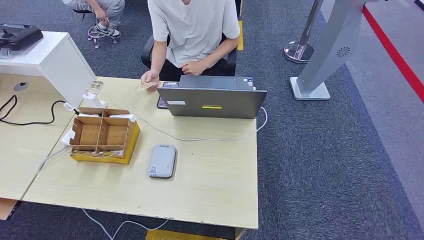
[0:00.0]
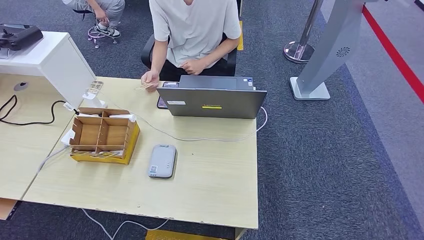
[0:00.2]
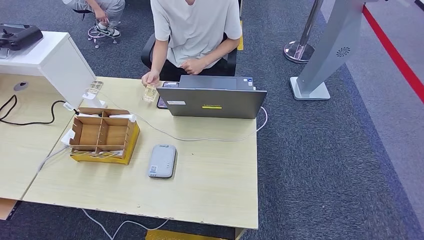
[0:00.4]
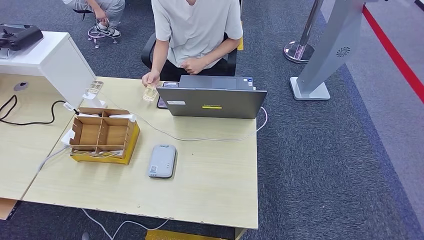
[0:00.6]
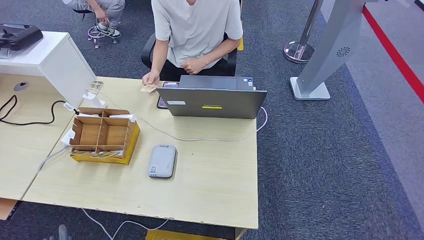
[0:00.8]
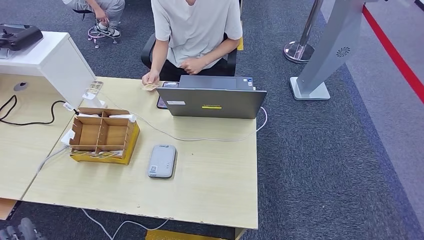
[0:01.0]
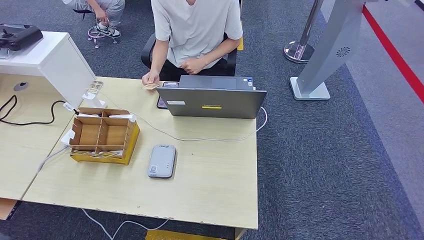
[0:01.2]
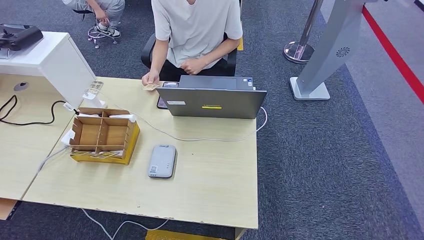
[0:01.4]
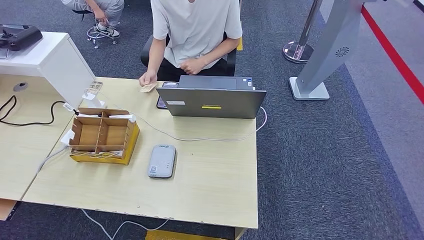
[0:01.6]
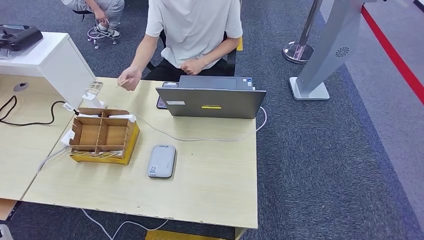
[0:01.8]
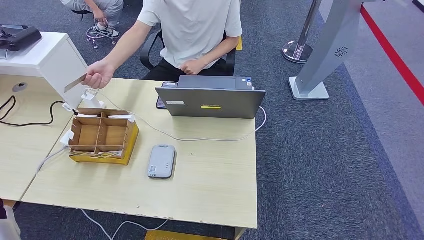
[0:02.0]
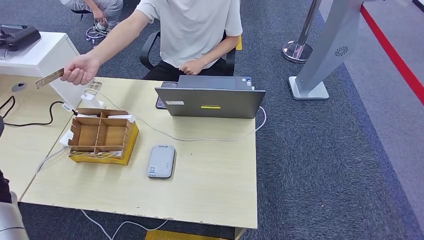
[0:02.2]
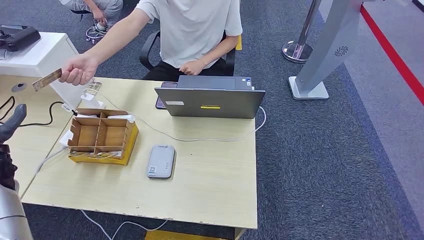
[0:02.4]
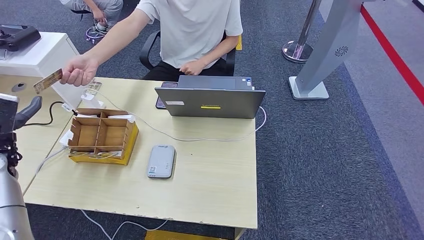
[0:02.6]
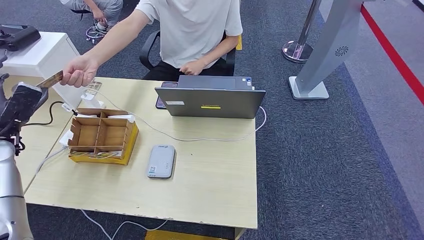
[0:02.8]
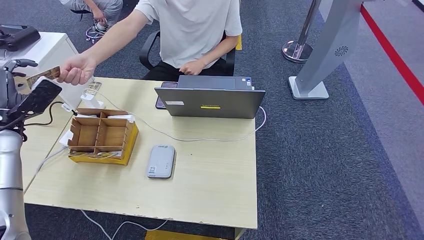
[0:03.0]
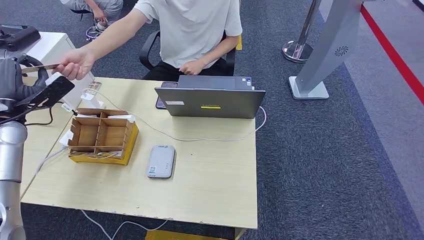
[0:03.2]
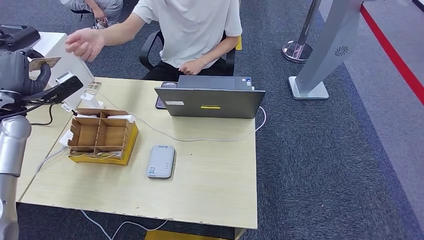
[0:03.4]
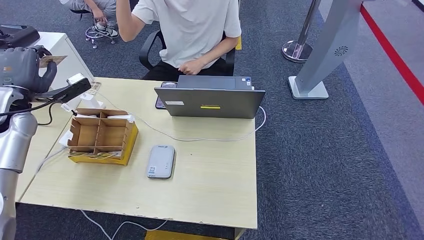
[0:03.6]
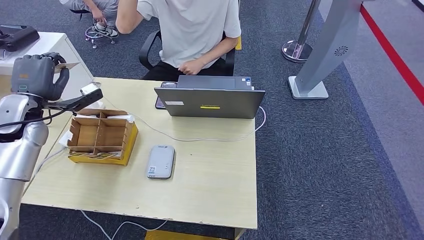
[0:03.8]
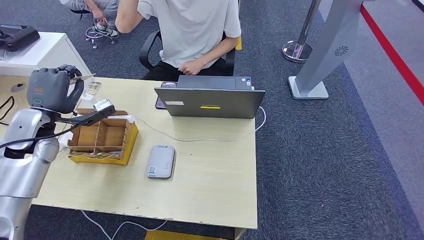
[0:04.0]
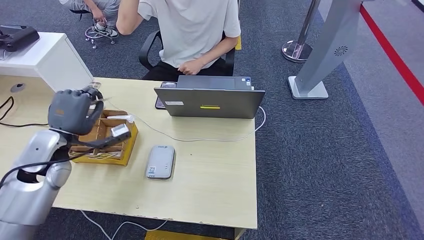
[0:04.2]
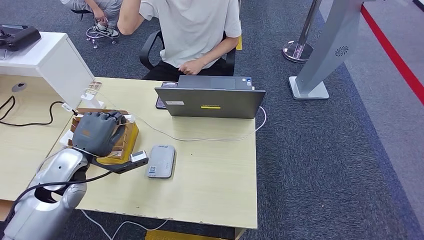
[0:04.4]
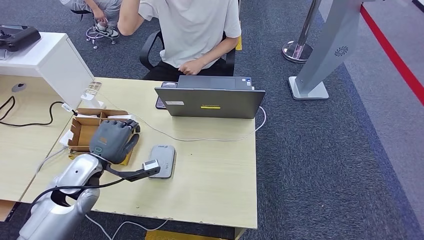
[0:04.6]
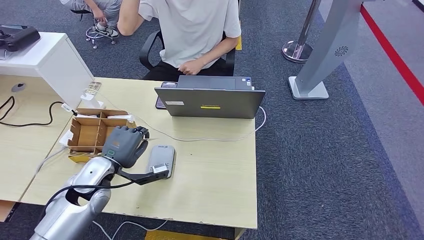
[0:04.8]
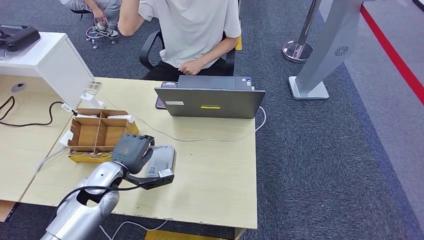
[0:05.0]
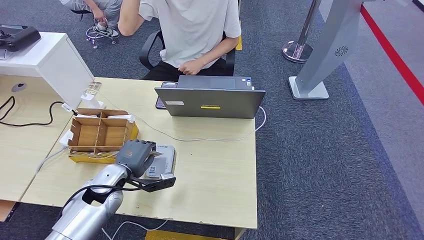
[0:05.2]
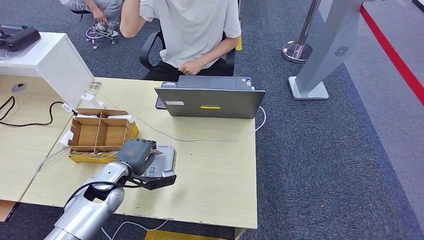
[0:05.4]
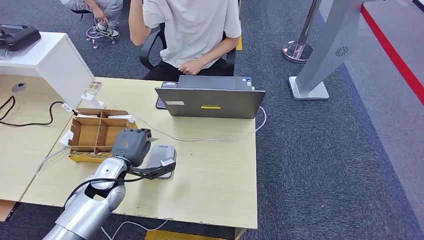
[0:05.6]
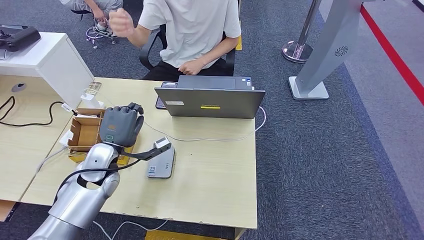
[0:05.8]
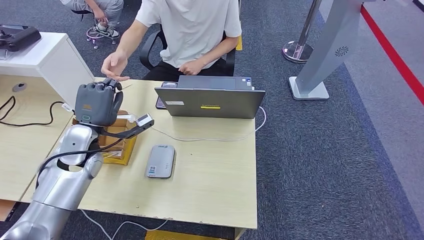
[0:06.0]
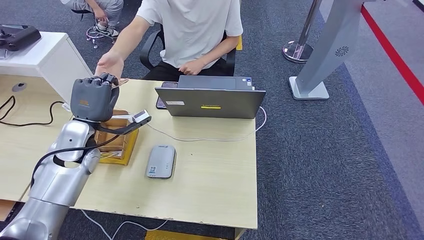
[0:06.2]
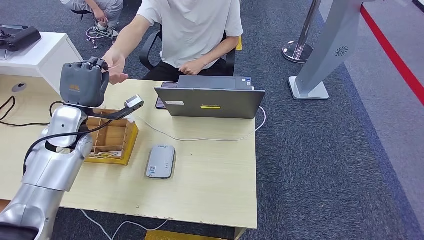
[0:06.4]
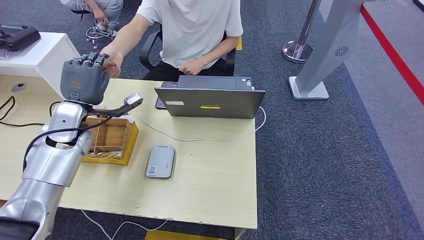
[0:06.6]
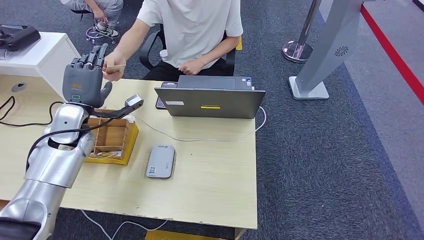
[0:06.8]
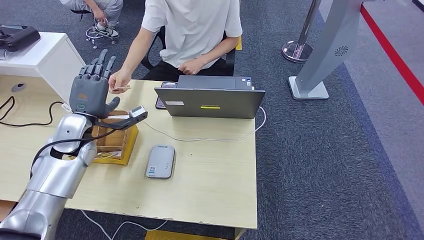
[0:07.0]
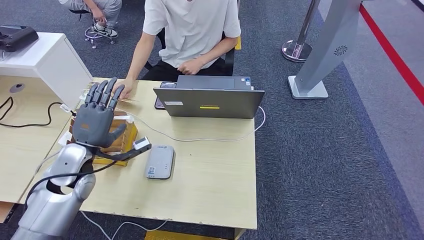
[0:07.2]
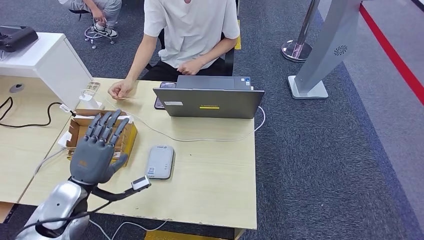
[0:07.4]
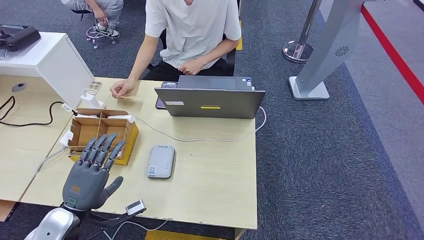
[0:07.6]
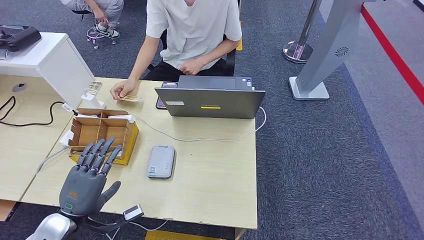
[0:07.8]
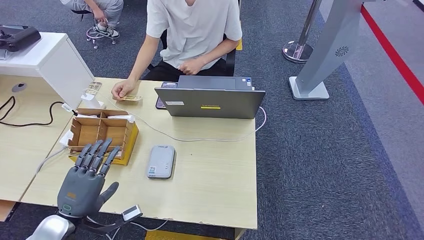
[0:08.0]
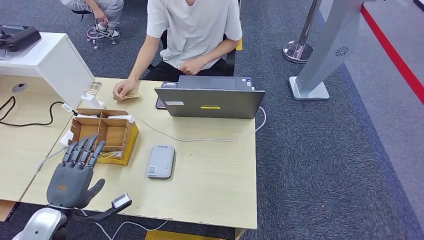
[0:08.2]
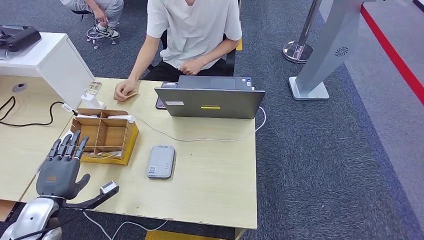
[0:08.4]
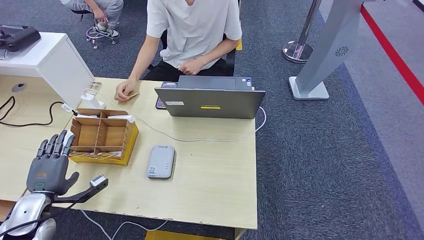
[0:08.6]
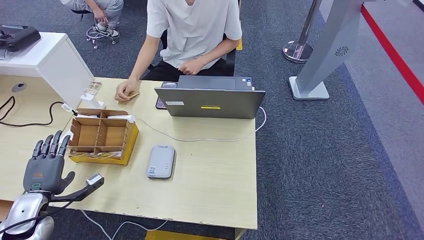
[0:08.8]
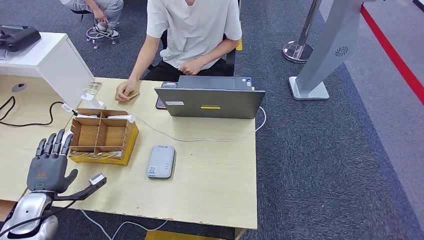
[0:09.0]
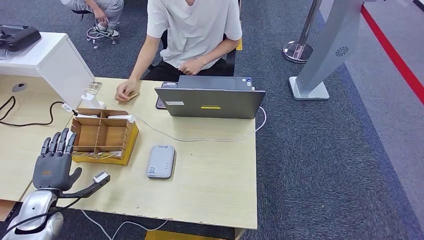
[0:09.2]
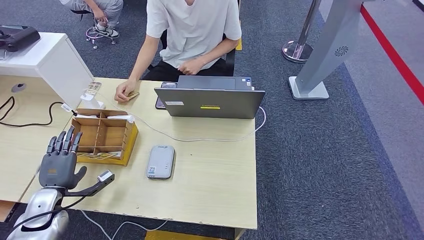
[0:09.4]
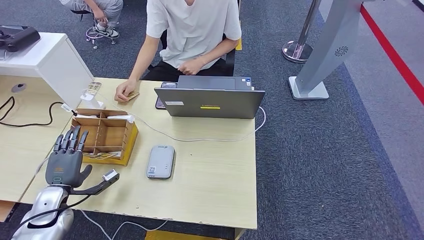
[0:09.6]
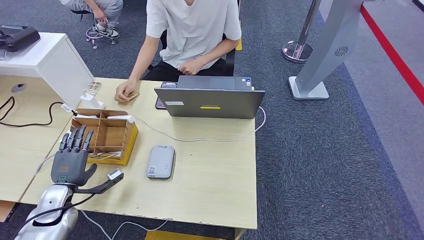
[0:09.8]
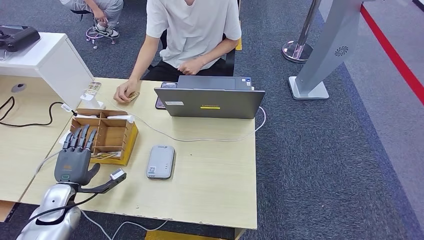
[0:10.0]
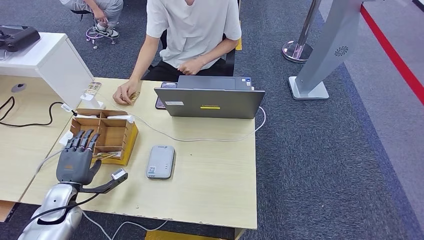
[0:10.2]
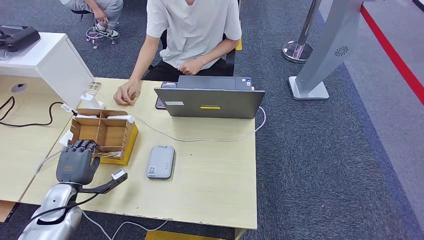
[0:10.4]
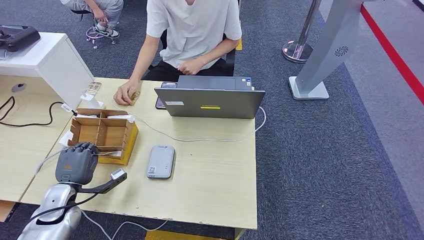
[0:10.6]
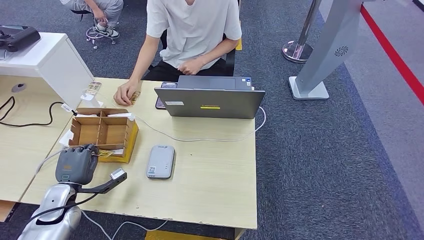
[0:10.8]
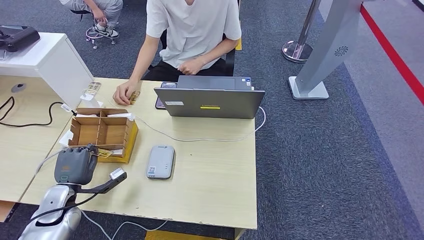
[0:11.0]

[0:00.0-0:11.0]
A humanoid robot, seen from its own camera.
Step, 0:00.0 to 0:03.8: Take the ID card from the person's hand.
Step, 0:04.6 to 0:05.2: Place the ID card on the card reader.
Step, 0:05.8 to 0:06.6: Hand the ID card to the person.
0:01.6 to 0:03.2: The left hand travels forward and upward by approximately 30 cm.
0:03.2 to 0:04.8: The left hand goes some 25 cm to the right, downward and backward.
0:04.8 to 0:06.2: The left hand moves upward and forward, roughly 10 cm.
0:06.2 to 0:07.8: The left hand moves backward and downward, roughly 20 cm.
0:07.8 to 0:09.4: The left hand travels to the left, forward and downward by some 15 cm.
0:09.4 to 0:11.0: There are only small adjustments of the hands.

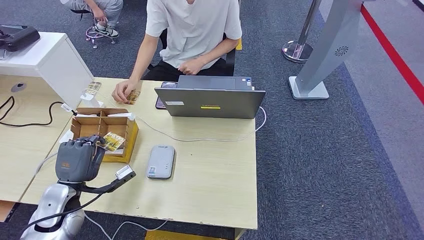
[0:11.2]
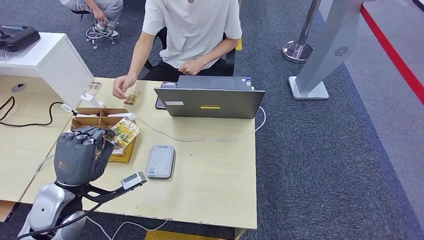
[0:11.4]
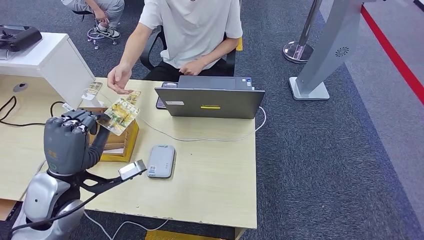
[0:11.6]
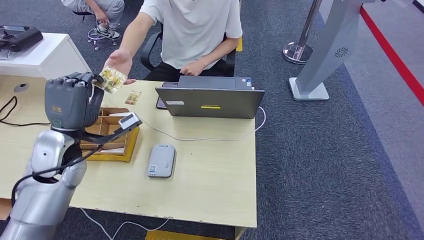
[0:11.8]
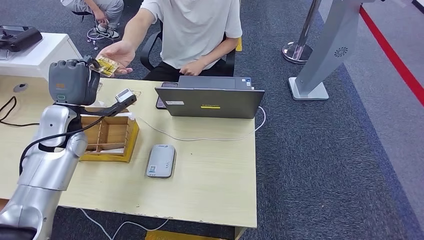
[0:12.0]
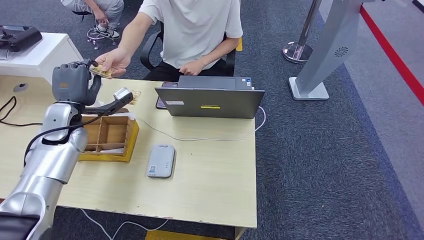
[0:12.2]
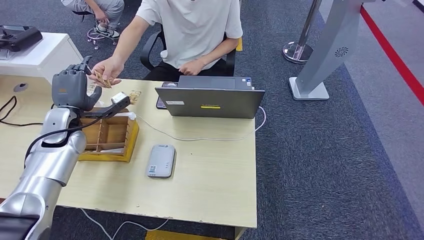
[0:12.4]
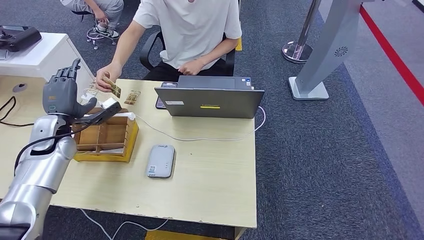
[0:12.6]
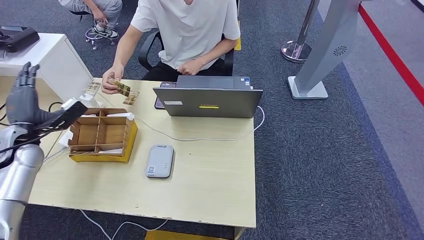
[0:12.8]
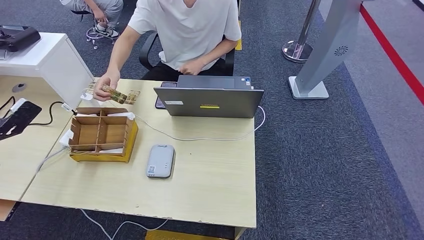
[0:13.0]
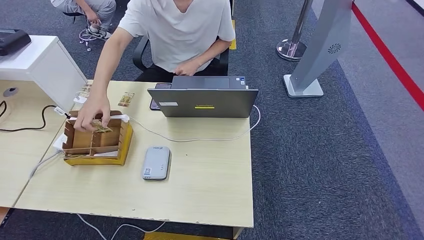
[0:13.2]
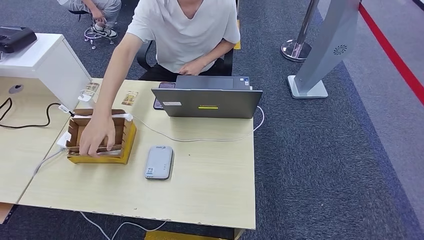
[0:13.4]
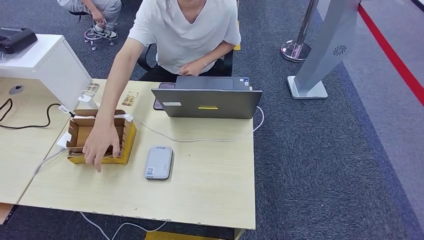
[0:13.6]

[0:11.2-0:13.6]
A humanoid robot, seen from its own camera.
Step, 0:12.0 to 0:13.6: Hand the room key to the person.
0:11.2 to 0:12.4: The left hand heads forward and upward, covering about 20 cm.
